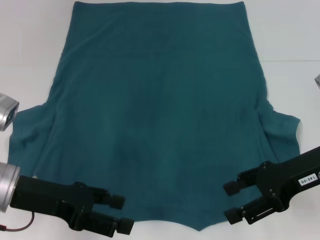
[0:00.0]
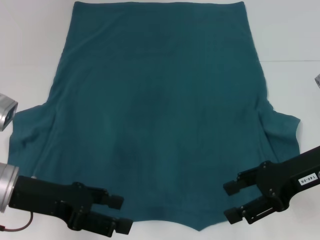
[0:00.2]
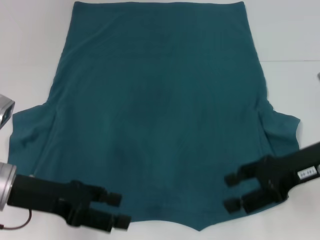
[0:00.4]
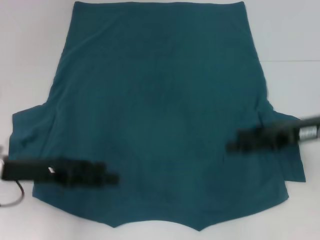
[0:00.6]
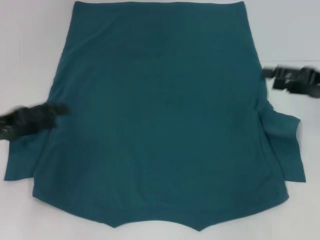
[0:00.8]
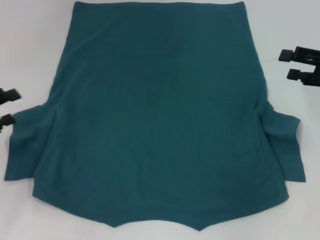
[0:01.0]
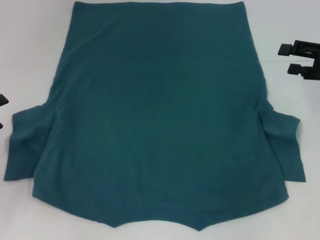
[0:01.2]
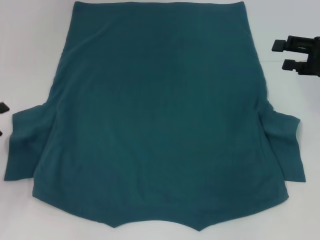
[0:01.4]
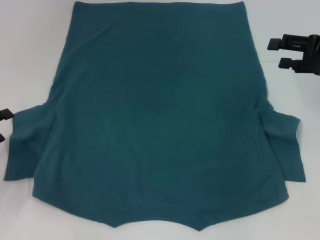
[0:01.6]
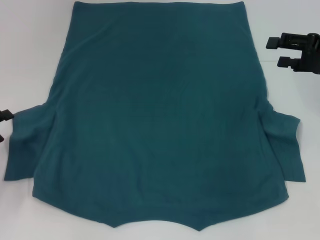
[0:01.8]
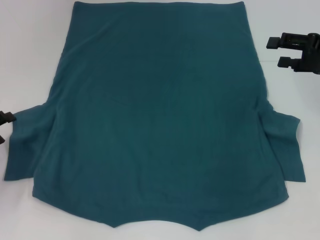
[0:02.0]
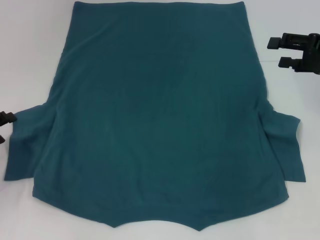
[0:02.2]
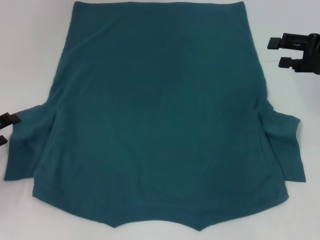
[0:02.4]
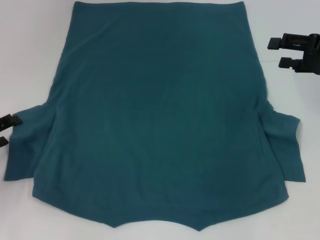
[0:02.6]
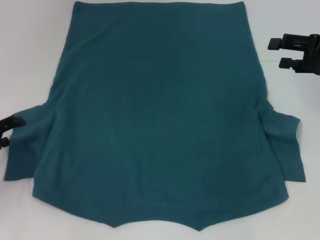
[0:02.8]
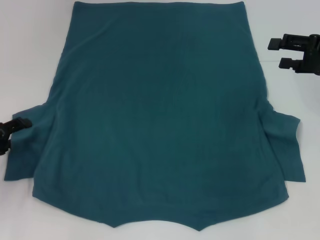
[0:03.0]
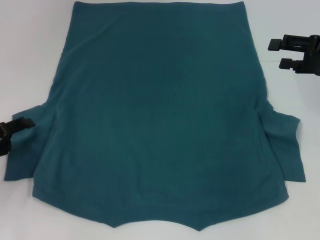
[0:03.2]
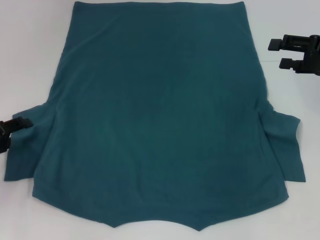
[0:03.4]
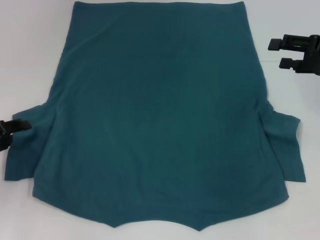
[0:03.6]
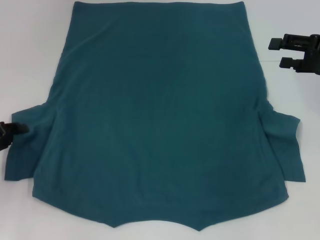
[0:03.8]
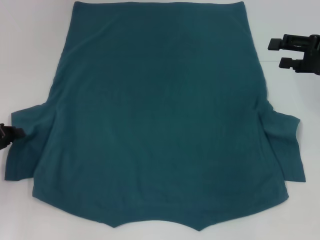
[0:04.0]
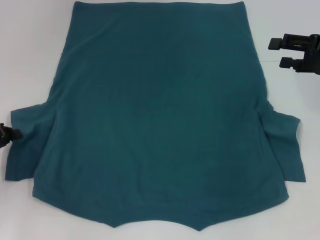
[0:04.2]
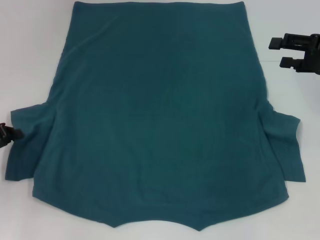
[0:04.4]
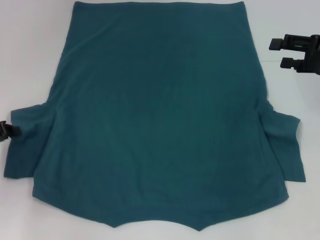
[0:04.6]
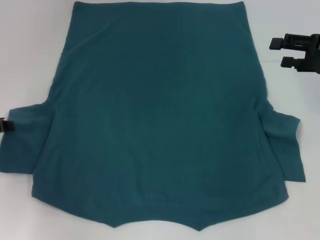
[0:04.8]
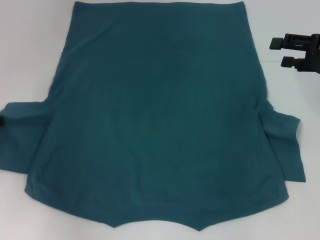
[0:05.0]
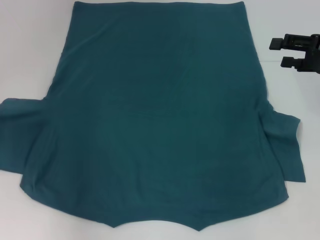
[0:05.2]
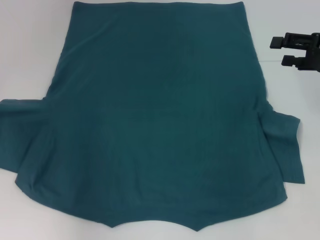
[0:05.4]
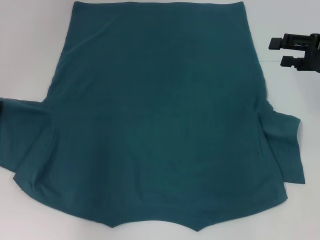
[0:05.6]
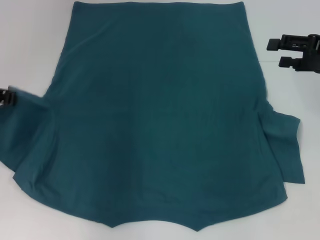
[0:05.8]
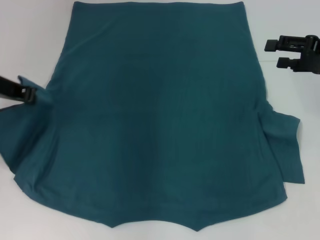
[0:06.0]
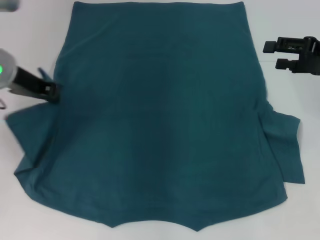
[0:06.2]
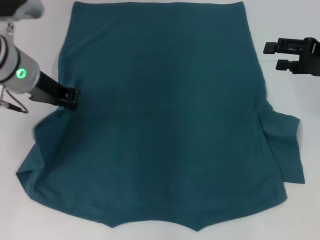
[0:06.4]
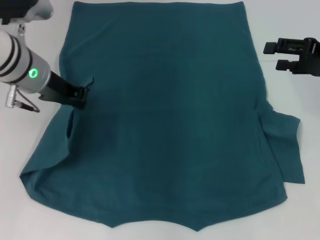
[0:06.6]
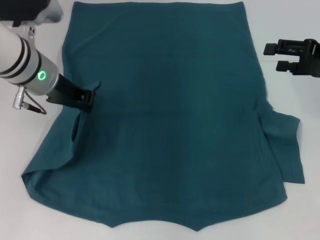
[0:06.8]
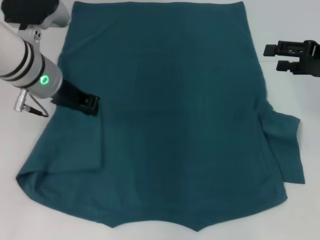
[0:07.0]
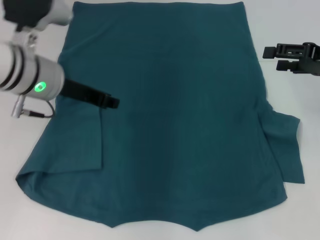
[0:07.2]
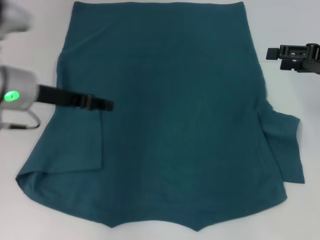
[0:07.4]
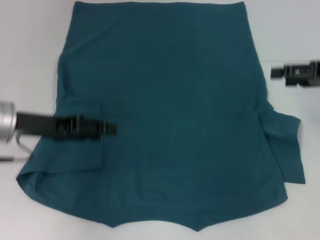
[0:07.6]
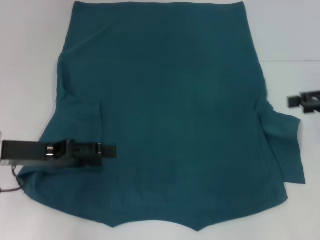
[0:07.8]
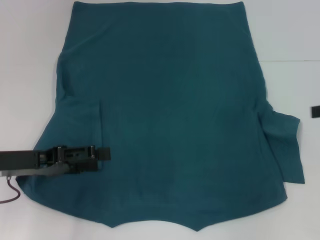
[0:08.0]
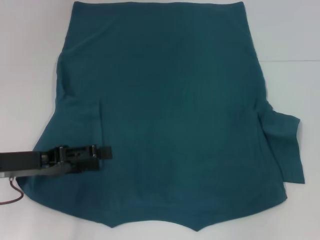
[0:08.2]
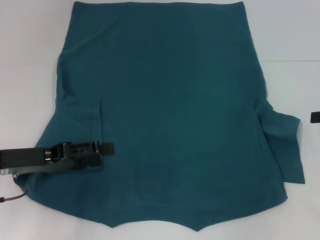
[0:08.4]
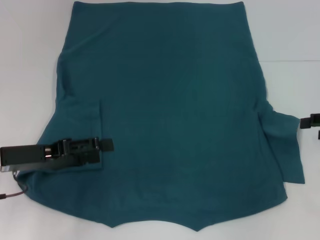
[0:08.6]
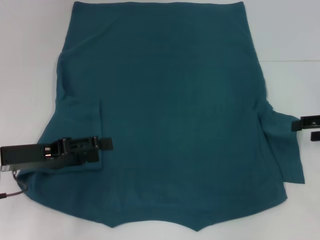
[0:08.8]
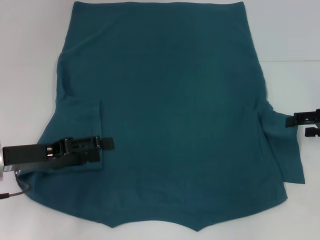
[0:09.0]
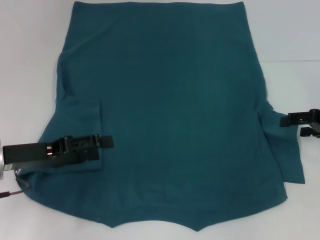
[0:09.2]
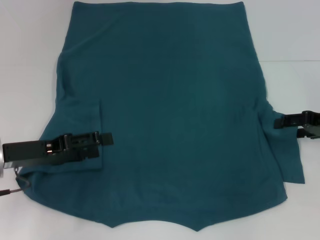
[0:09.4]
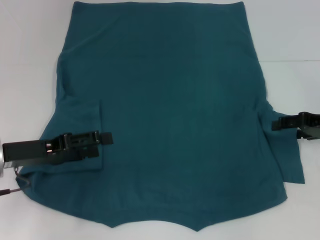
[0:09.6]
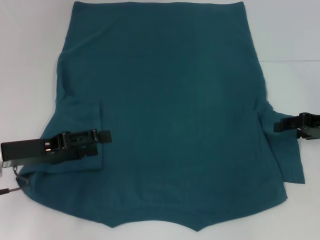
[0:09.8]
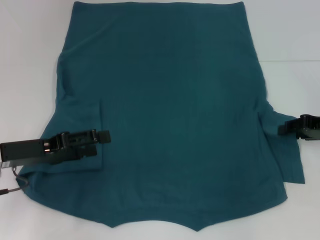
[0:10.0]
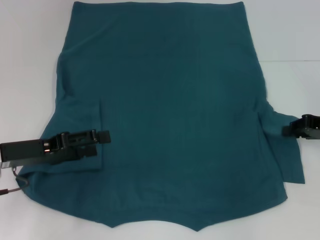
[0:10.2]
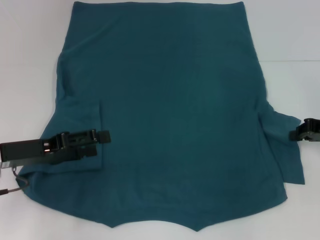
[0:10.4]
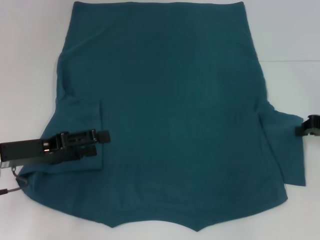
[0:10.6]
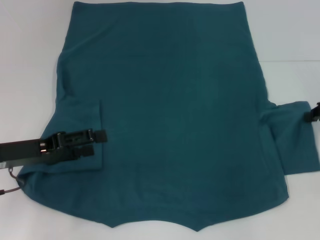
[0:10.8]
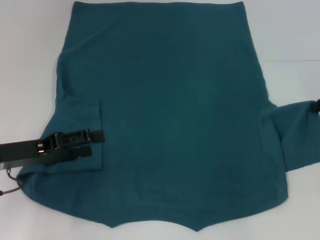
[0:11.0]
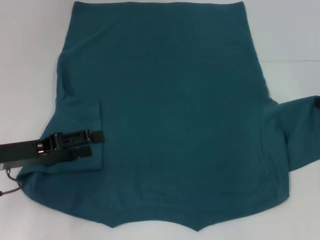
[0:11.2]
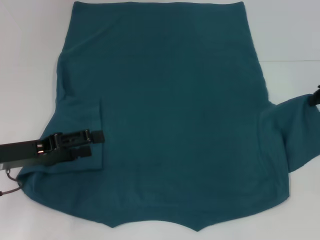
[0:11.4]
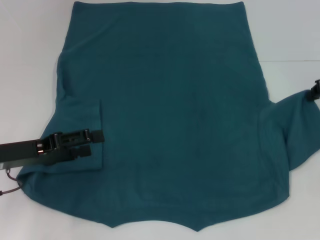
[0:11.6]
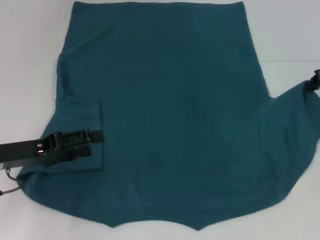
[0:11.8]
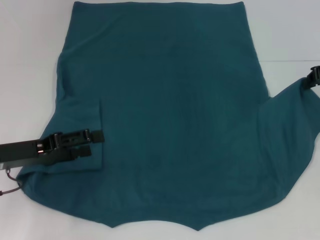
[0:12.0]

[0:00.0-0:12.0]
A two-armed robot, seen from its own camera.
Step, 0:00.0 to 0:06.8: Fold the bottom left sleeve with your left hand.
0:00.0 to 0:01.6: The right gripper travels to the right and forward by roughly 10 cm; the left gripper heads to the left, covering about 15 cm.
0:01.6 to 0:03.0: The grippers move only a little.
0:03.0 to 0:04.4: The left gripper closes its fingers.
0:04.4 to 0:06.0: The left gripper heads upward, to the right and forward, covering about 20 cm.
0:06.0 to 0:07.6: The left gripper moves downward, roughly 5 cm, reaches some 10 cm to the right, then returns, and opens.
0:07.6 to 0:09.0: The left gripper changes place by about 5 cm, and opens its fingers. The right gripper is displaced downward by approximately 5 cm.
0:09.0 to 0:10.4: The right gripper closes up.
0:10.4 to 0:12.0: The right gripper shifts approximately 10 cm upward and forward.

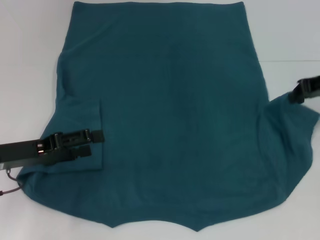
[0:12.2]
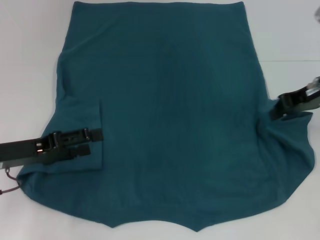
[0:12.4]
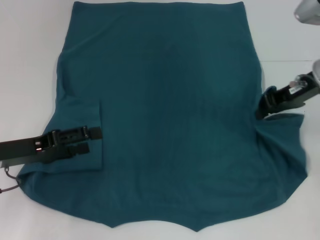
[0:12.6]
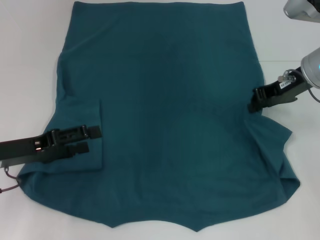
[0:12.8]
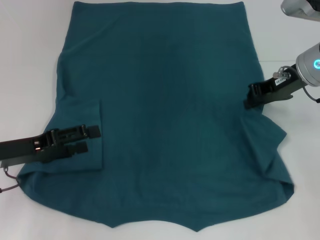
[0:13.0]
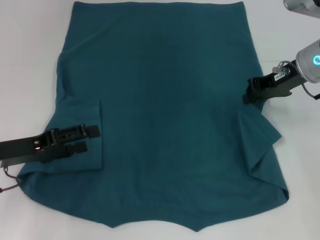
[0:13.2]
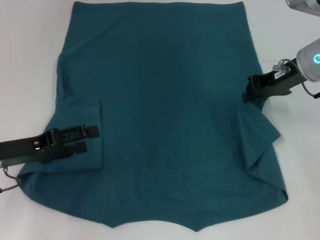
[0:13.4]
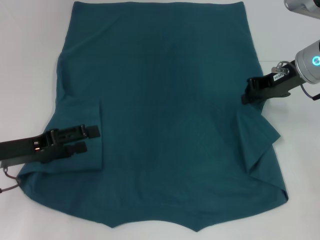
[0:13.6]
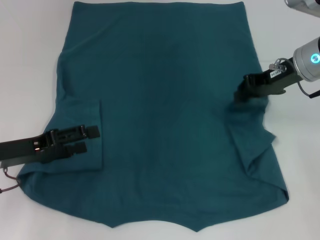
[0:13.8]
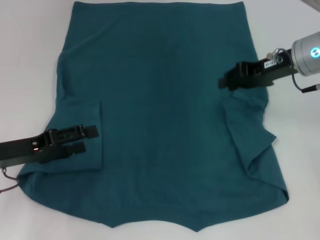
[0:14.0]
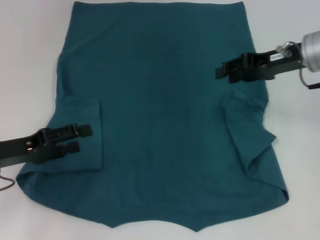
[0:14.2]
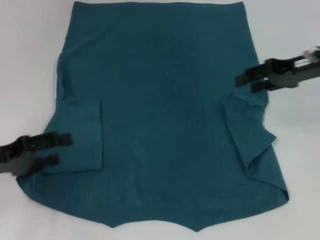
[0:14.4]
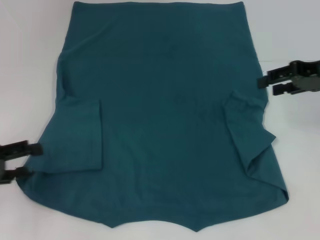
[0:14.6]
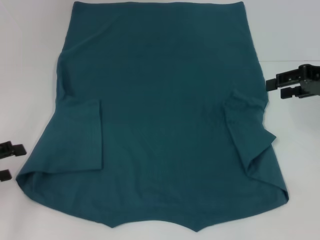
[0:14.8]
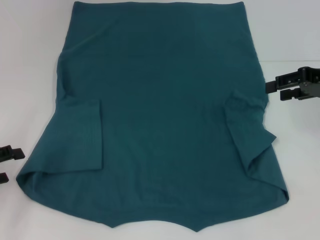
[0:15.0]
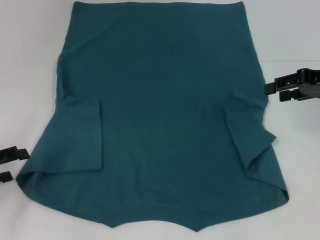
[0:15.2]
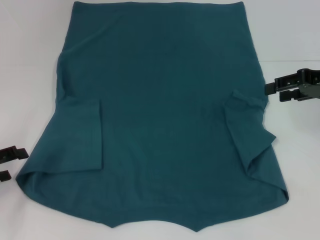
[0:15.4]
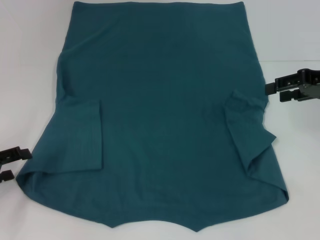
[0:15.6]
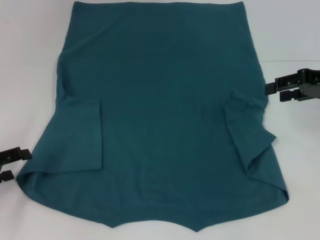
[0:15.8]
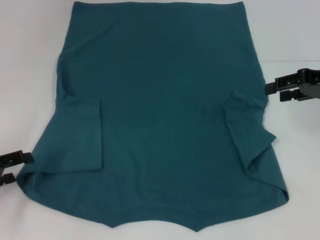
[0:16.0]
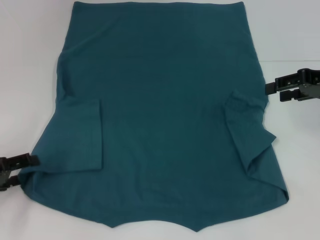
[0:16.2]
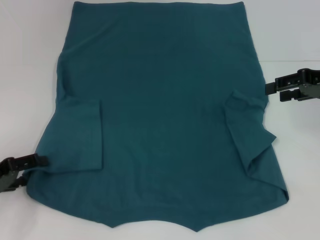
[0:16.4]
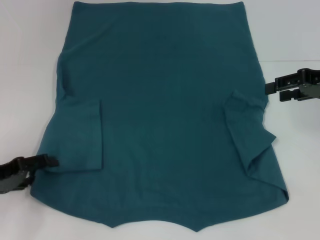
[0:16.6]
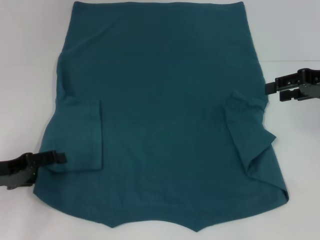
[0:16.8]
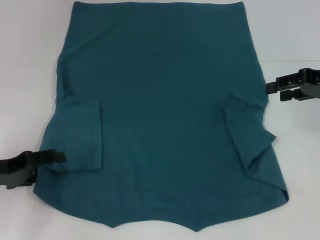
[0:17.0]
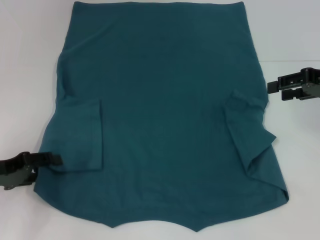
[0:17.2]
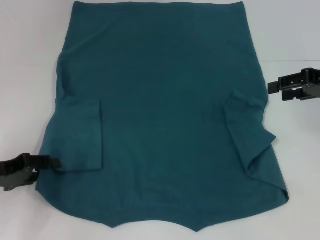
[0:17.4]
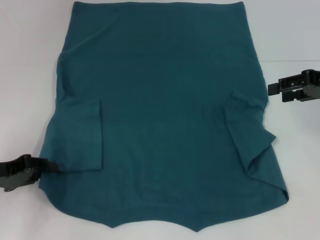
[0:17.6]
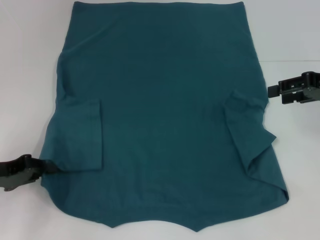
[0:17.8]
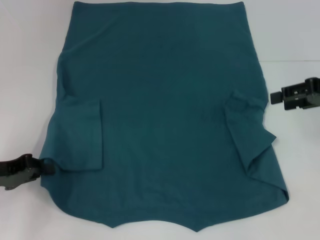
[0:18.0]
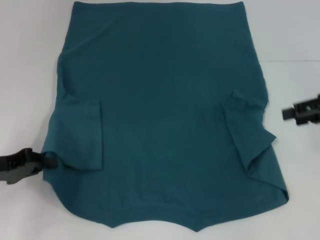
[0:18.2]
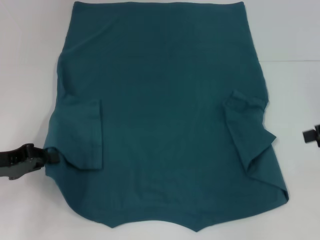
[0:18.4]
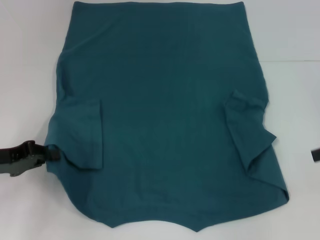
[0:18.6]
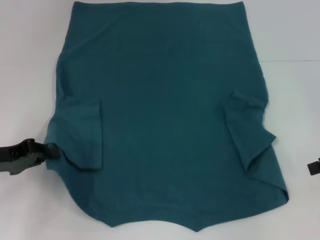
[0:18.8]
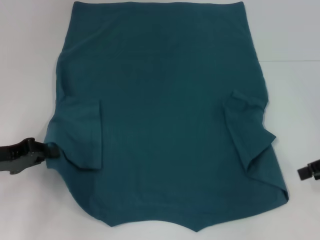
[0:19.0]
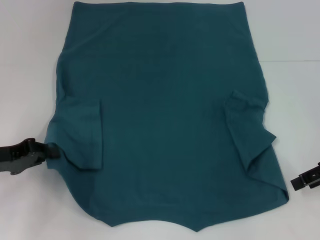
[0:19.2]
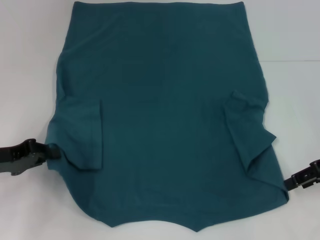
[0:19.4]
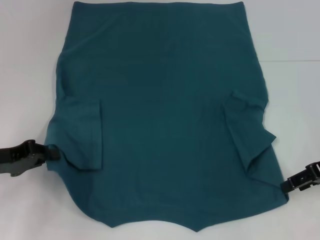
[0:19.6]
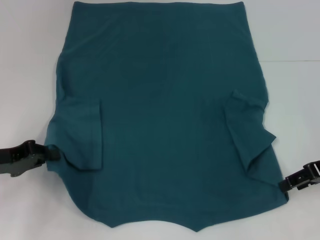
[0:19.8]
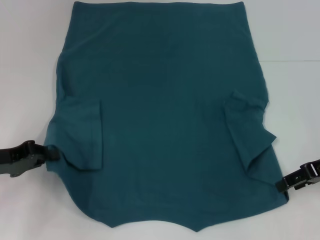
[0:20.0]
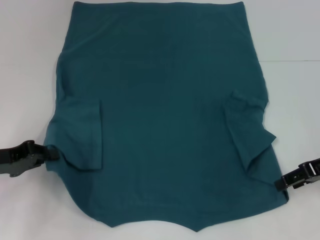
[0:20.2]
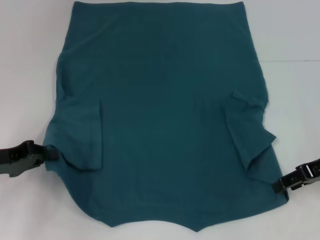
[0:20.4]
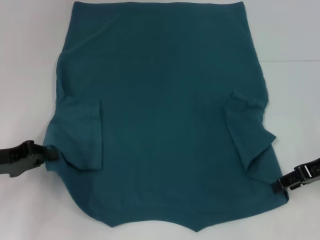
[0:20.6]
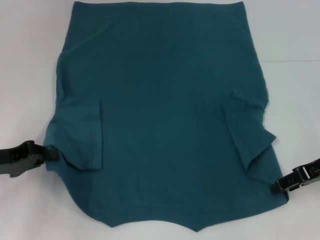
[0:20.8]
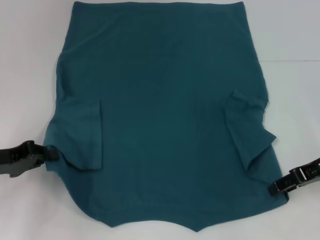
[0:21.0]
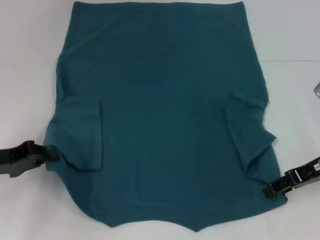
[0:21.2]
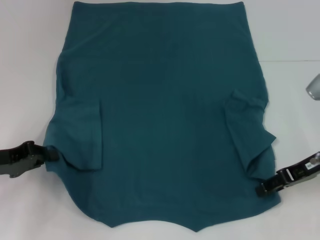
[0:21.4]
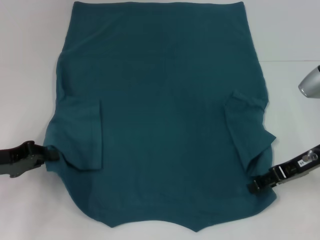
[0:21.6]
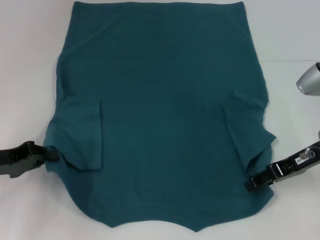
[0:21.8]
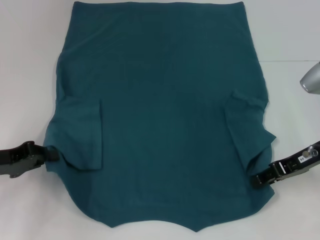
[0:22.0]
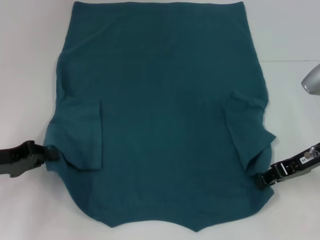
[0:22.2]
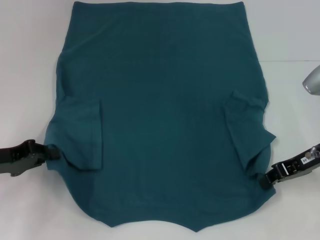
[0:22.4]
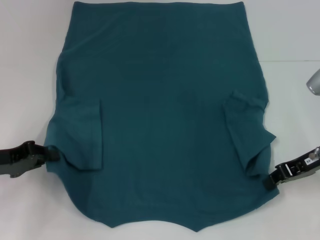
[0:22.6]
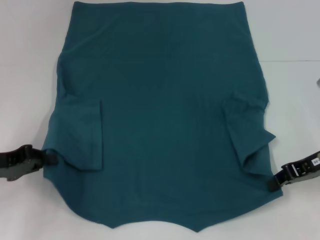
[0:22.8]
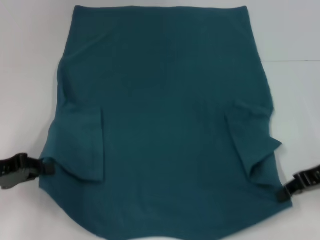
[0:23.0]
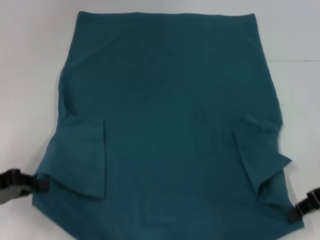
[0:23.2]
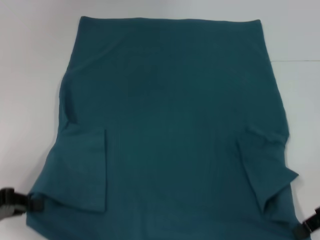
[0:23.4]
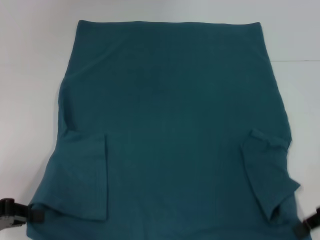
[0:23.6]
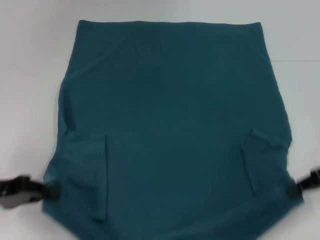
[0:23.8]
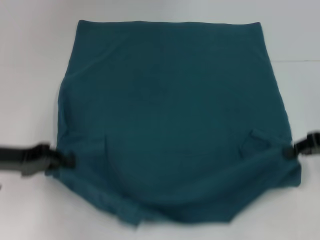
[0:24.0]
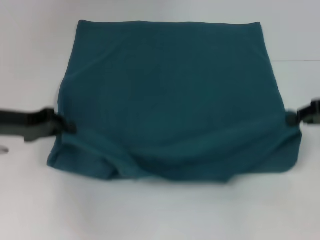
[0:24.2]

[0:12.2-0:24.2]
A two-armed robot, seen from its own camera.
Step, 0:14.0 to 0:17.8: Grab the bottom left corner with your left hand.
Step, 0:18.0 to 0:22.4: Grab the bottom right corner with your right hand.
0:12.2 to 0:13.8: The right gripper is displaced to the left by roughly 10 cm.
0:13.8 to 0:15.2: The left gripper shifts approximately 10 cm to the left. Meanwhile the right gripper goes roughly 10 cm to the right, and opens up.
0:15.2 to 0:16.6: There are only small adjustments of the grippers.
0:16.6 to 0:18.2: The left gripper closes up.
0:18.2 to 0:19.8: The right gripper shifts about 5 cm downward.
0:19.8 to 0:21.2: The grippers move only a little.
0:21.2 to 0:22.6: The right gripper closes up.
0:22.6 to 0:24.2: The left gripper travels forward by approximately 5 cm, while the right gripper moves to the right, some 5 cm.
